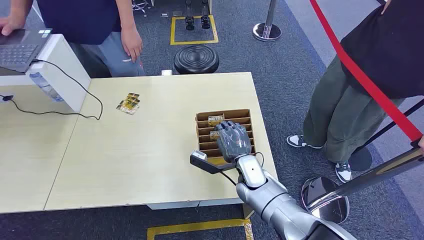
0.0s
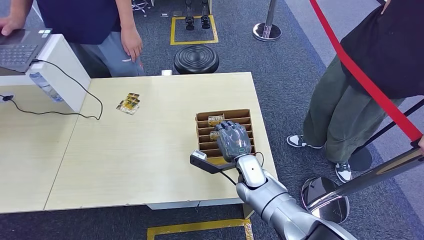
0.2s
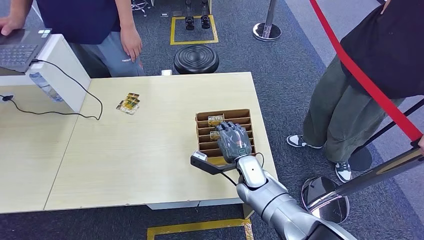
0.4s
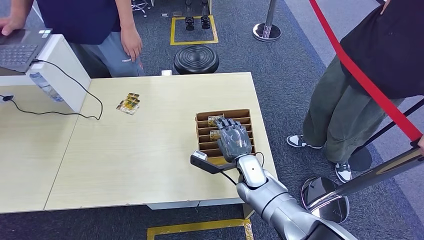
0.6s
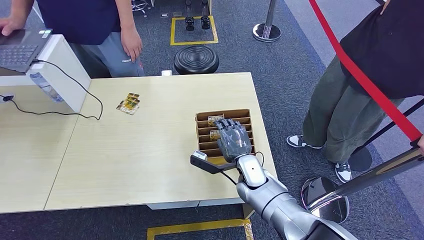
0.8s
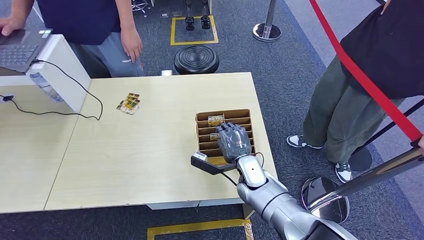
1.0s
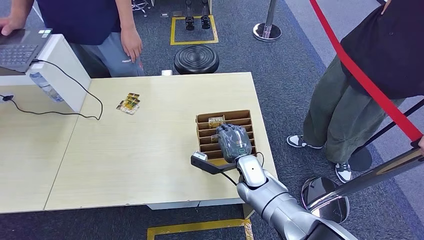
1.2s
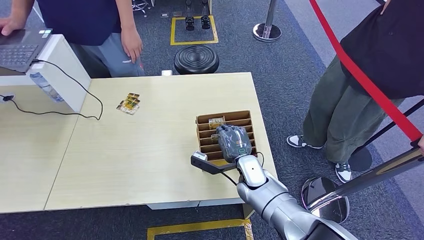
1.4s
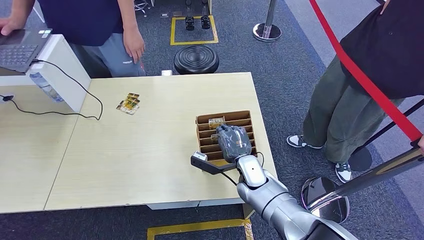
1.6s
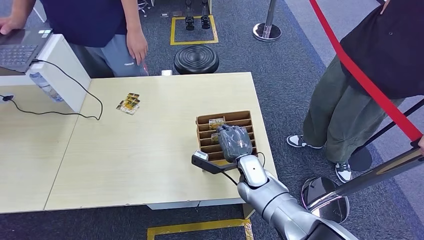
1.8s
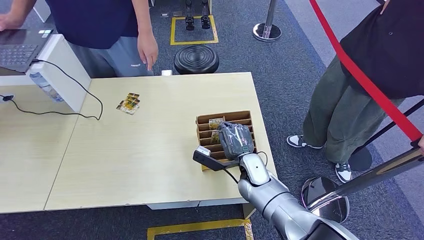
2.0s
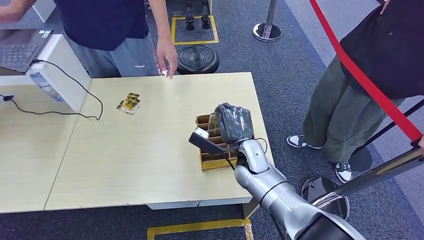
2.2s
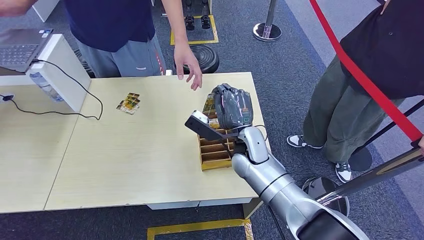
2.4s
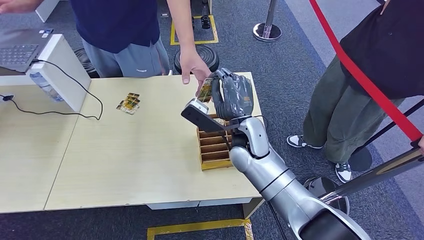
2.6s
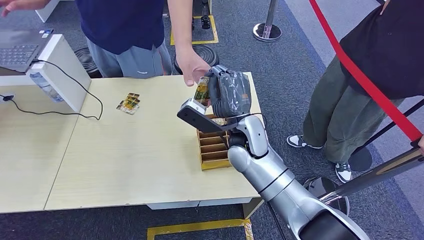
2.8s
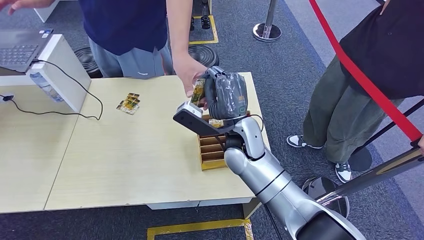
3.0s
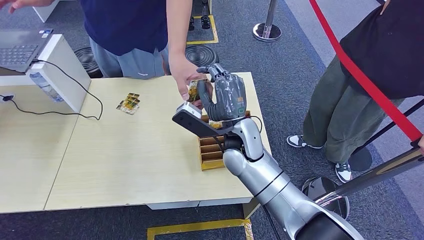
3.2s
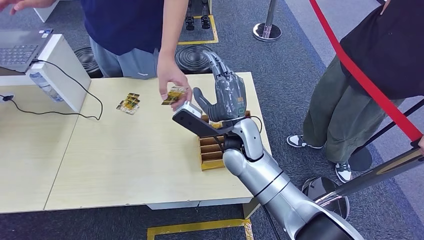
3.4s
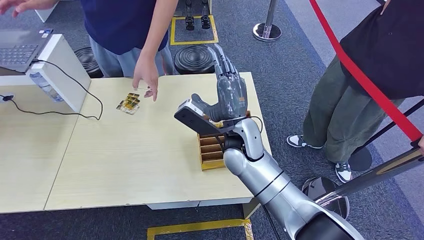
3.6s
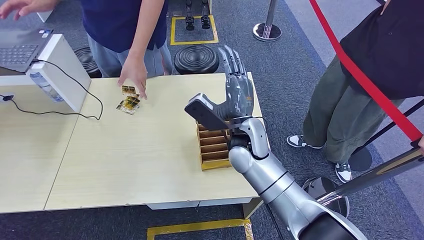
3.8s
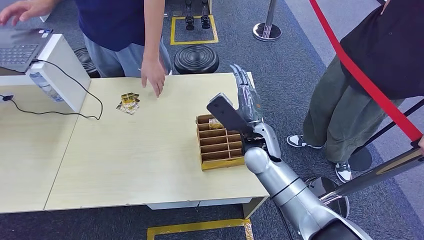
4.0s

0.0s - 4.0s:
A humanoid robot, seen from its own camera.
Step, 0.0s - 2.2s: Pick up the key card from the card box.
Step, 2.4s - 4.0s: Hand the key card to the target.
